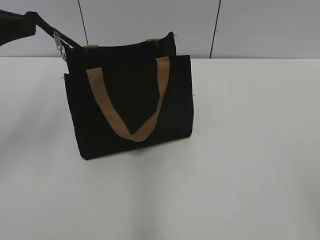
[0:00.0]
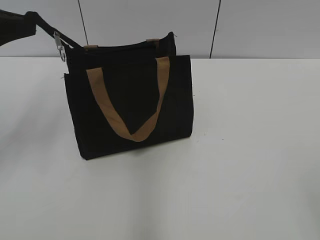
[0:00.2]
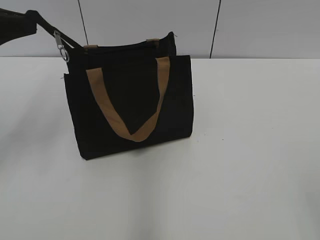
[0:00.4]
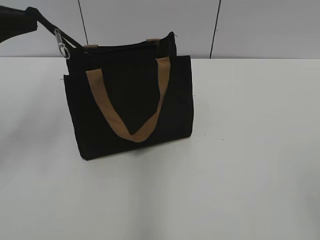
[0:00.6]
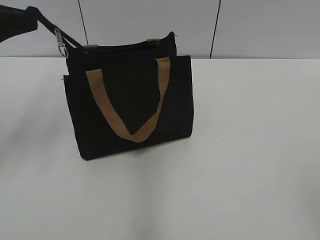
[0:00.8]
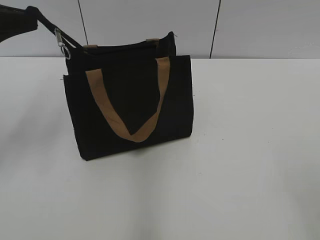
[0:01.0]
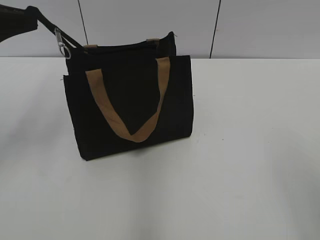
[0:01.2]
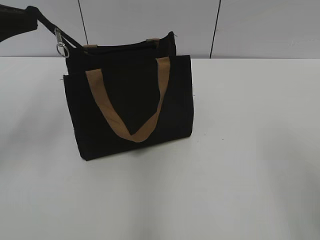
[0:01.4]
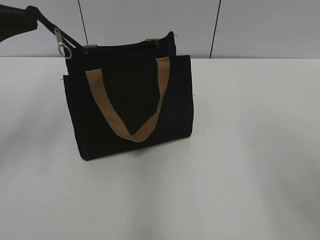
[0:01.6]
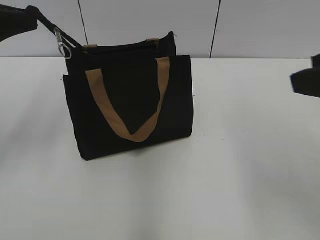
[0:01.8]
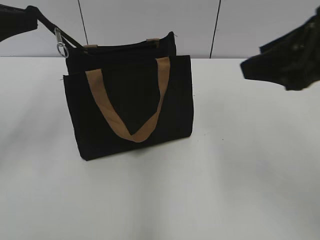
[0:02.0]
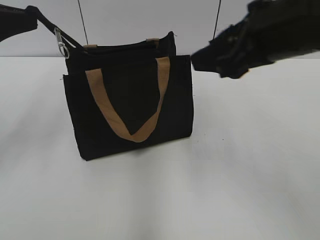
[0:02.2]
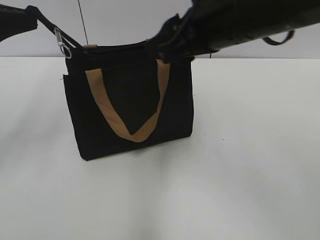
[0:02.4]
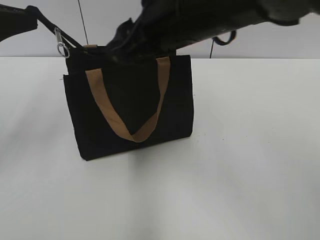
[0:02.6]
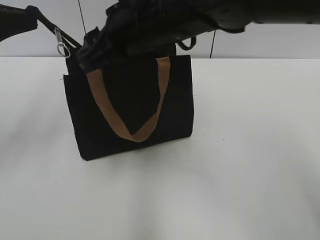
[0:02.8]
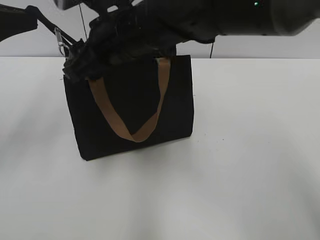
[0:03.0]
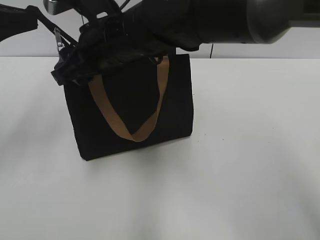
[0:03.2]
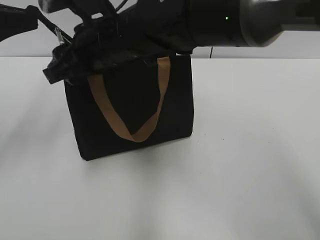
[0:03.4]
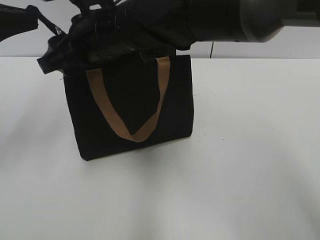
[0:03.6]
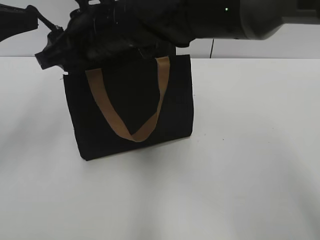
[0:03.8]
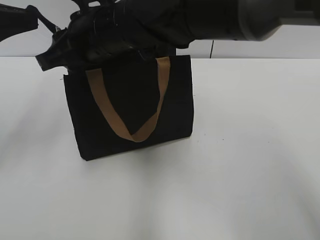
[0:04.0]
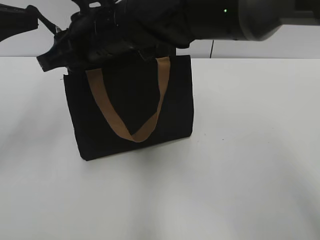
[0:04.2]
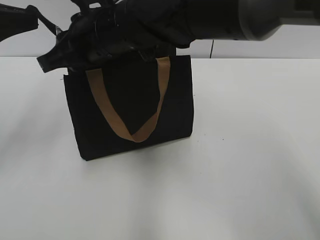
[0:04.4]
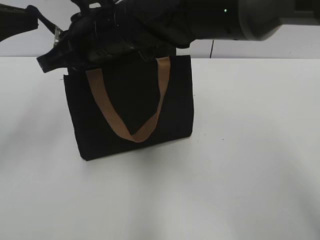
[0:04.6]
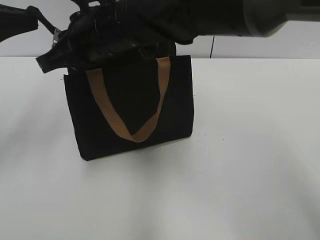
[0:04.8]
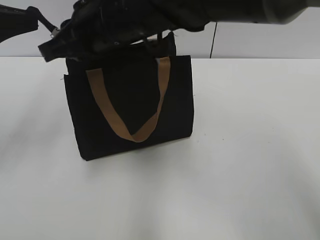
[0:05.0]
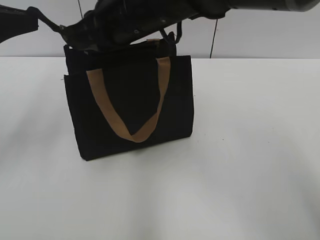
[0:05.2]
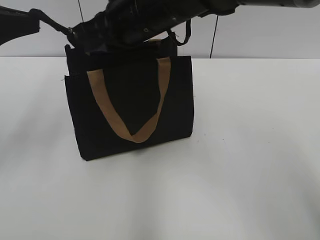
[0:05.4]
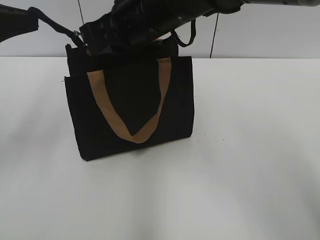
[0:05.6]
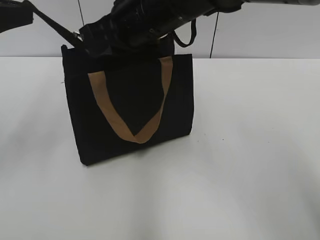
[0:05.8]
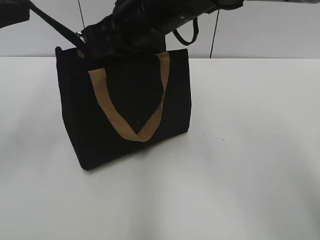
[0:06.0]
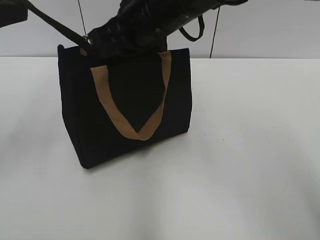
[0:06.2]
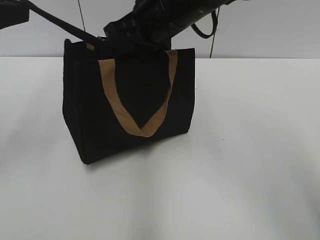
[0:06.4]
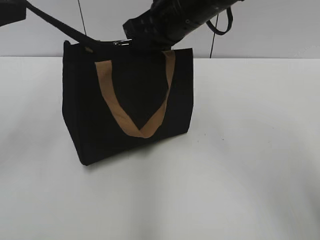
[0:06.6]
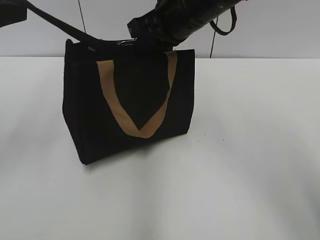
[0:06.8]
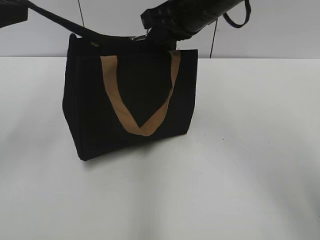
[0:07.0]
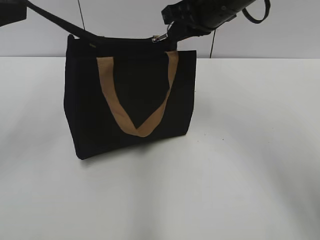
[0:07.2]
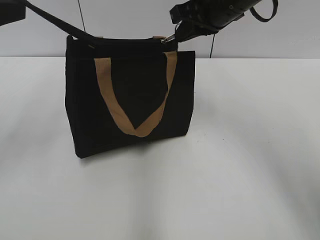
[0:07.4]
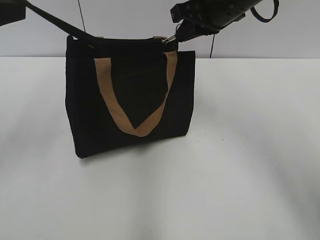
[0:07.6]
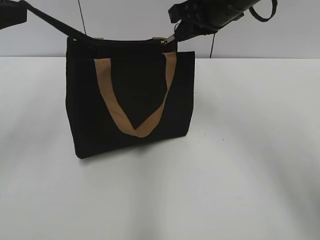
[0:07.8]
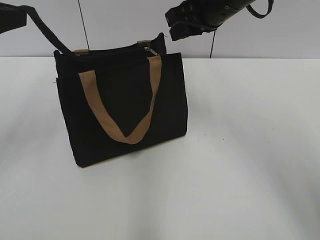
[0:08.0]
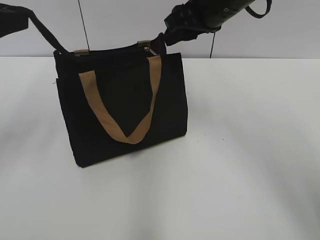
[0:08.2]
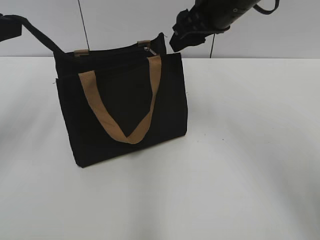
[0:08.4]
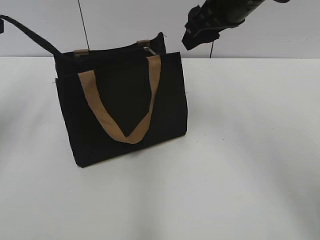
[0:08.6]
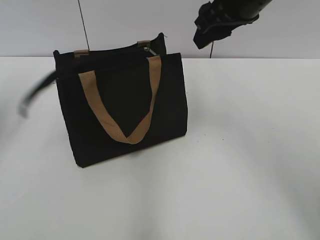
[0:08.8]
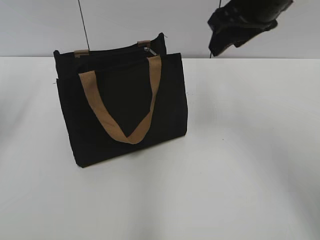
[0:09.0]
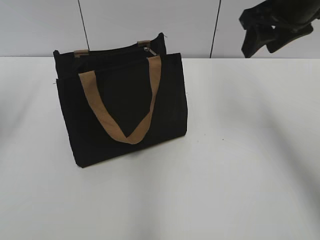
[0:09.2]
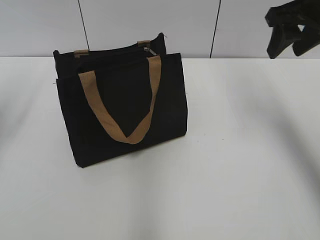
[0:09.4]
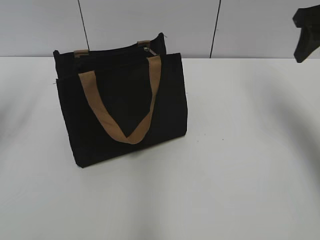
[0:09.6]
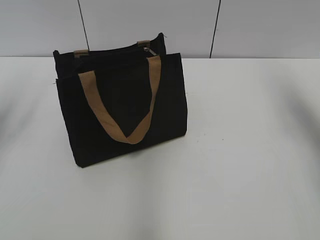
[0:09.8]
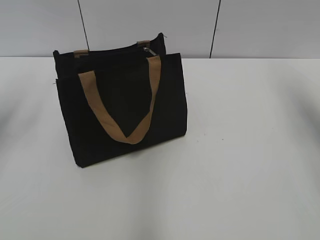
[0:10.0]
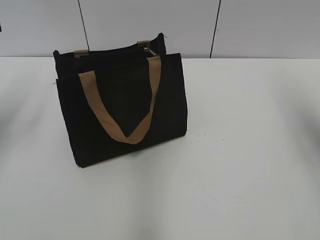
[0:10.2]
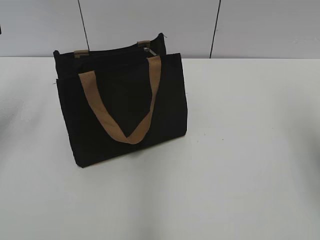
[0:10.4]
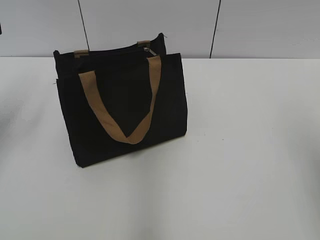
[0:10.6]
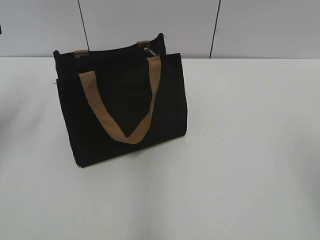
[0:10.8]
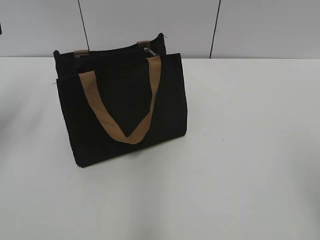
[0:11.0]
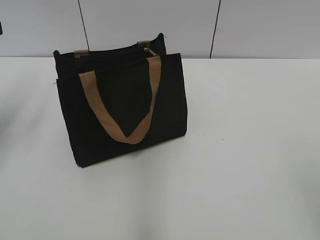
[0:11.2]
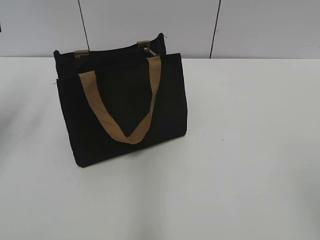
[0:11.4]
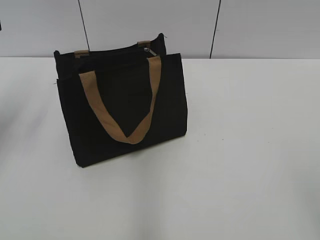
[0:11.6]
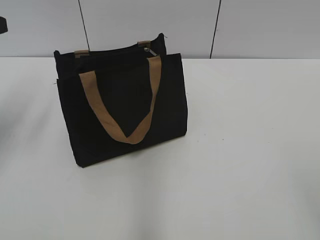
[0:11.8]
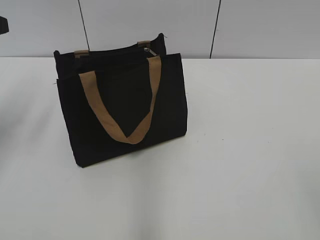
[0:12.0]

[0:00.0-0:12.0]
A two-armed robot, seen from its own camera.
Step, 0:00.0 to 0:07.8: Zip up the bag with your right hand.
Step, 0:08.0 to 0:08.6: Grab the zipper with your left hand.
0:01.6 to 0:03.0: The right gripper shifts approximately 35 cm to the left and forward.
0:03.0 to 0:04.4: The right gripper closes.
0:04.4 to 0:06.0: The right gripper travels to the right by roughly 5 cm, and closes.
0:06.0 to 0:07.6: The right gripper is displaced to the right by approximately 10 cm.
0:07.6 to 0:09.0: The left gripper moves to the left, approximately 5 cm, and opens its fingers; the right gripper shifts by some 5 cm, and opens its fingers.
0:09.0 to 0:10.4: The right gripper travels to the right and backward by approximately 20 cm.
0:10.4 to 0:12.0: The right gripper goes roughly 25 cm backward.

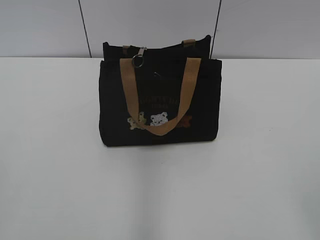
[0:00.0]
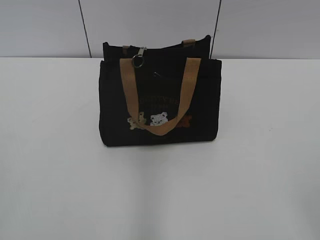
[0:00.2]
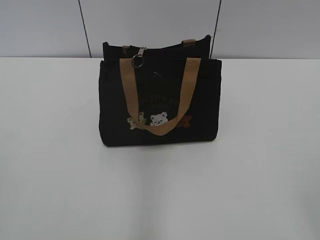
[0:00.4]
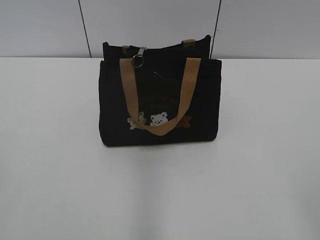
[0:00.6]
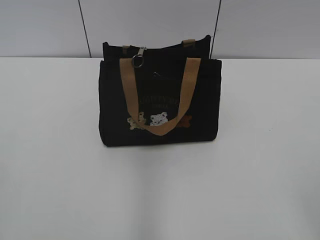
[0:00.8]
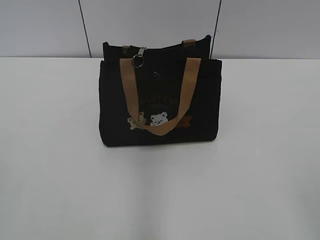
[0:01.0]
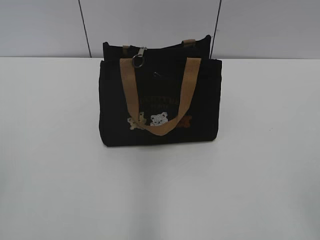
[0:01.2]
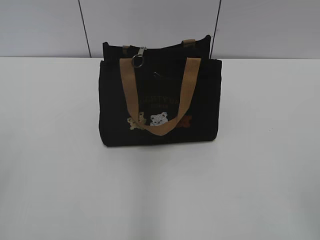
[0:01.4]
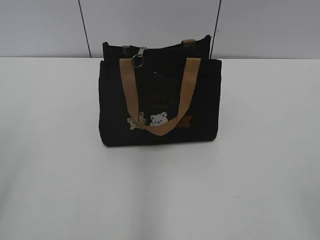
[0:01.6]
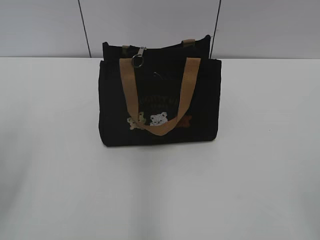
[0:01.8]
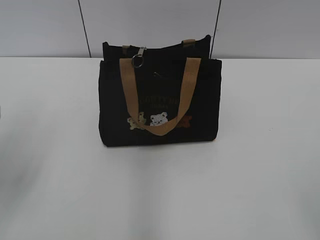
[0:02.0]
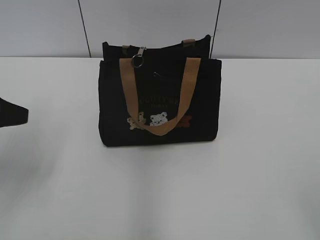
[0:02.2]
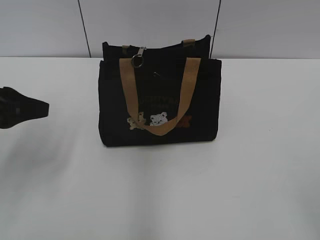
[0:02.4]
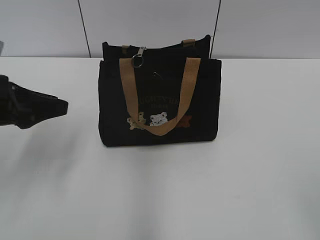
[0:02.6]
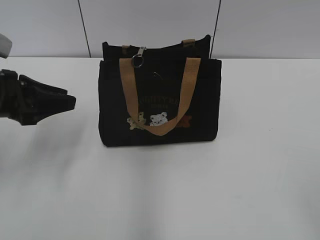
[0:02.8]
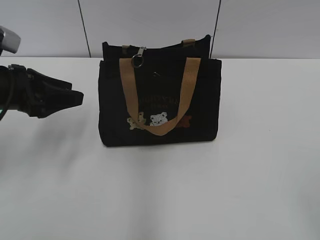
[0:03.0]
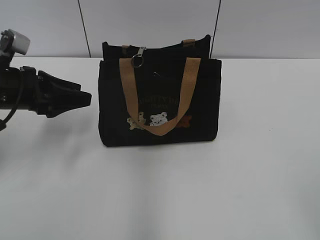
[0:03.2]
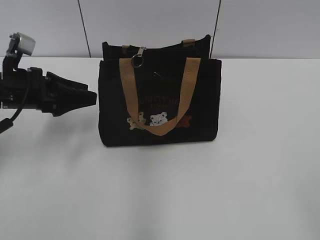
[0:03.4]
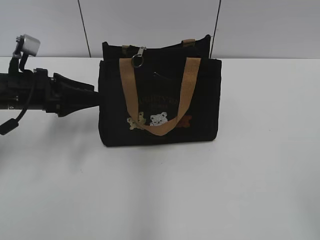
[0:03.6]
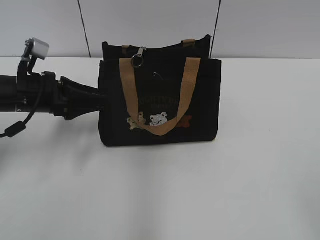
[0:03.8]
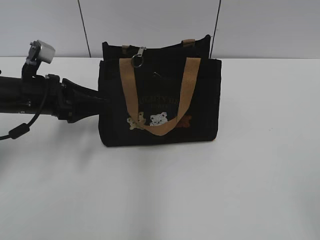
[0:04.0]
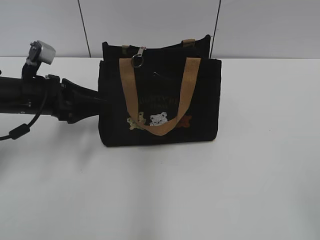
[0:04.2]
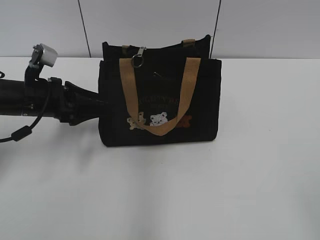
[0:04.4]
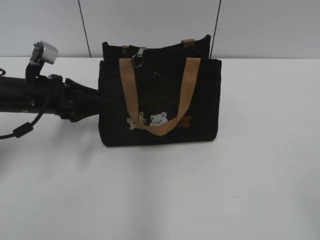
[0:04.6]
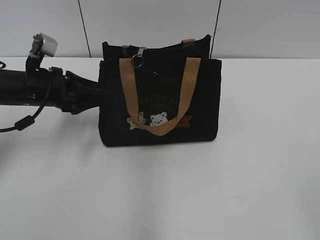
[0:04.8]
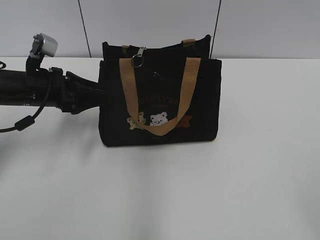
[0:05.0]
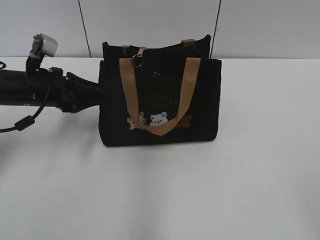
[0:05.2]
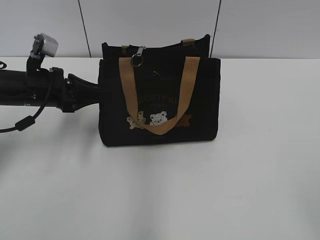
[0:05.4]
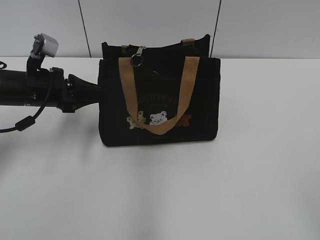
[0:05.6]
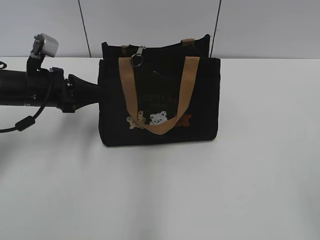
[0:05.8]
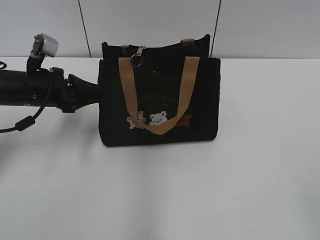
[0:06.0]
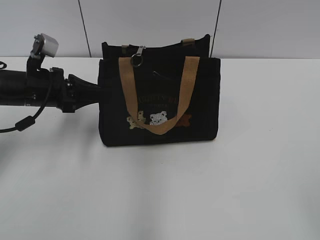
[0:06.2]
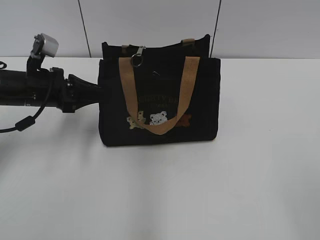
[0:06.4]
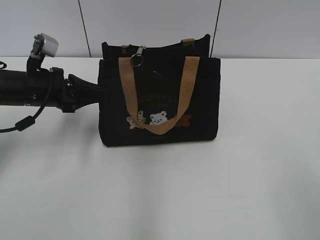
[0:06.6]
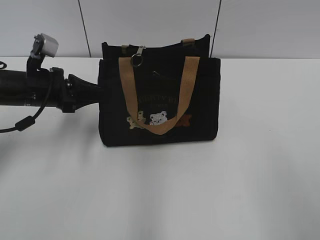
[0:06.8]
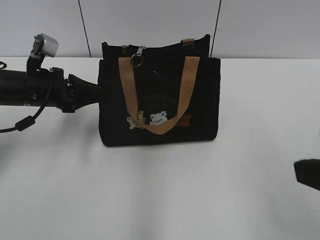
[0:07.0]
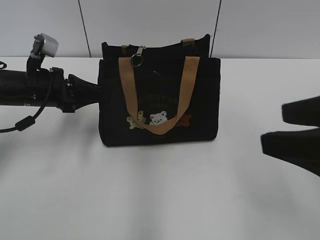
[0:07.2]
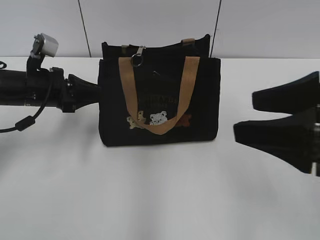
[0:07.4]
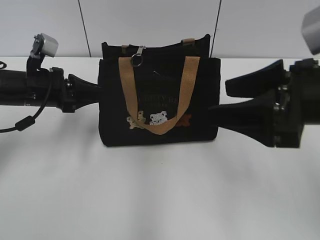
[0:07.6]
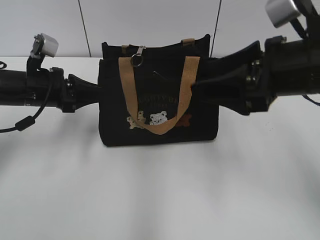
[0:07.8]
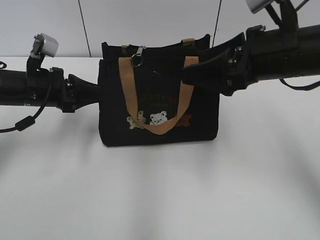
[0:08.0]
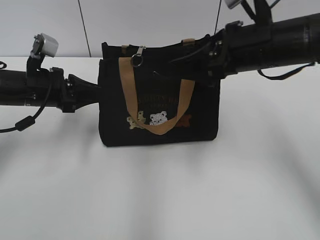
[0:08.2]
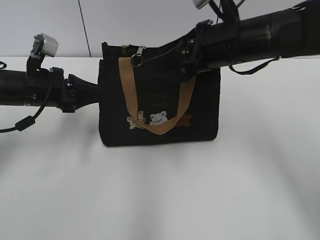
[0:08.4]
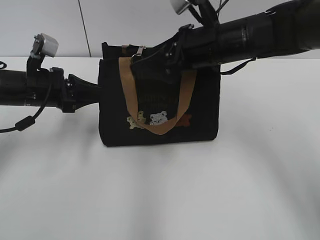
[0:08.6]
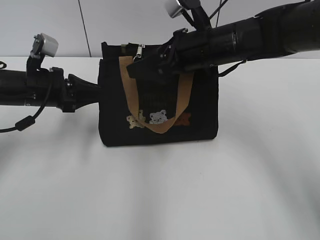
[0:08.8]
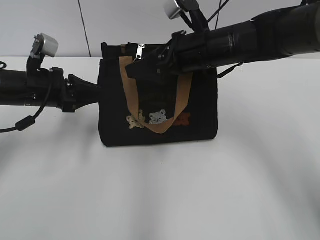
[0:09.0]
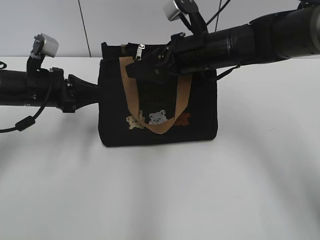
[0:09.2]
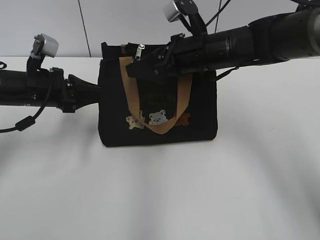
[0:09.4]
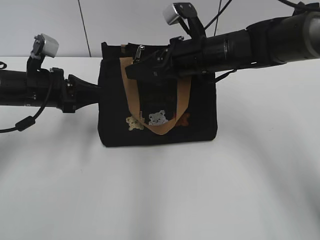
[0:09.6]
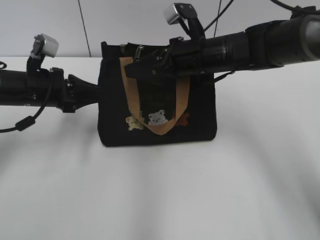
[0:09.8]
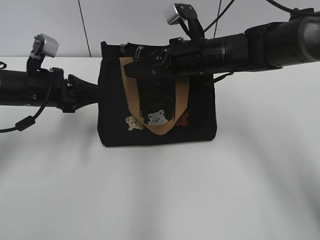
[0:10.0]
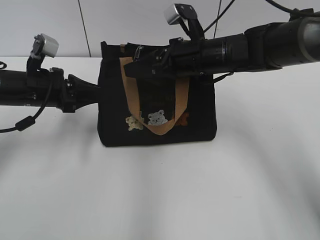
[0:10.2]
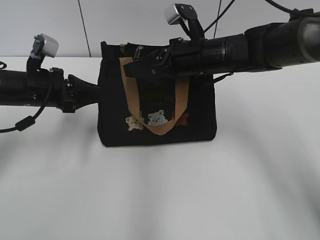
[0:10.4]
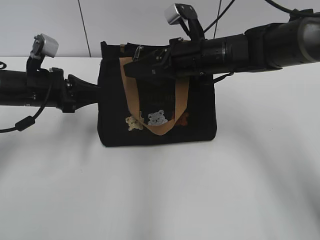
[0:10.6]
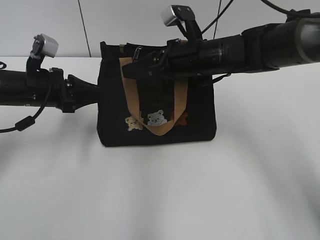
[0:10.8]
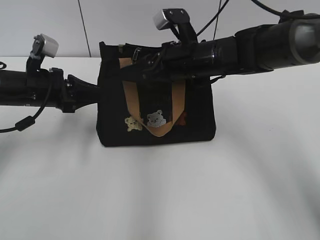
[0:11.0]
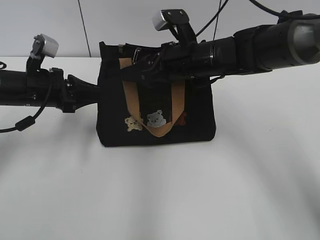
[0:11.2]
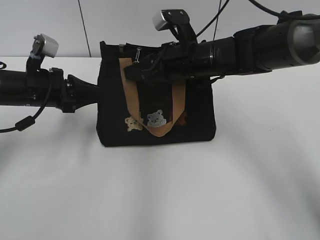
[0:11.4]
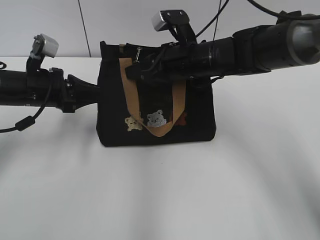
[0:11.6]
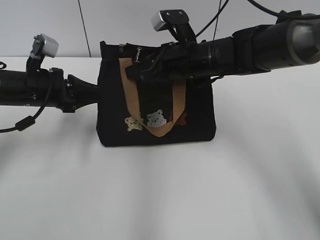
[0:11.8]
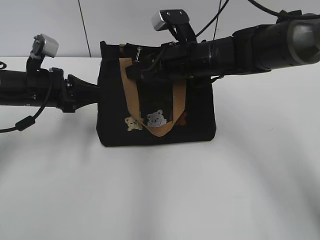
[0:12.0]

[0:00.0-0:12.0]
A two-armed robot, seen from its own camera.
0:01.6 to 0:03.0: The left gripper travels forward and downward by approximately 25 cm, and opens its fingers.
0:03.0 to 0:04.4: The left gripper shifts by approximately 5 cm.
0:04.4 to 0:06.0: The left gripper closes.
0:06.0 to 0:07.6: The right gripper moves forward and to the left, approximately 25 cm.
0:07.6 to 0:09.0: The right gripper goes some 20 cm forward and to the left.
0:09.0 to 0:10.4: The grippers make only small movements.
0:10.4 to 0:12.0: The right gripper closes its fingers.
